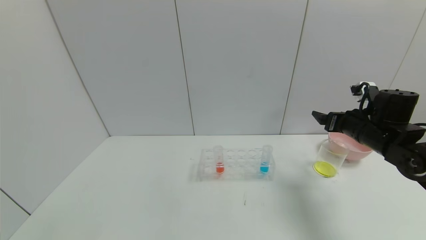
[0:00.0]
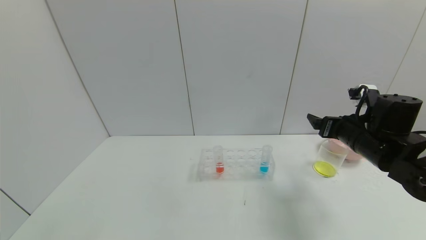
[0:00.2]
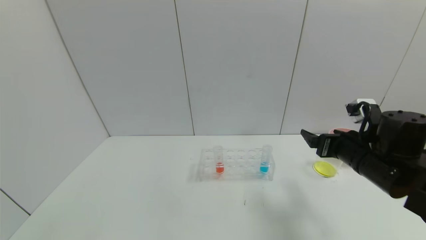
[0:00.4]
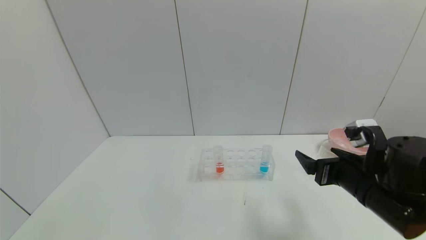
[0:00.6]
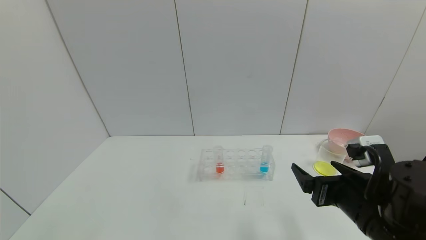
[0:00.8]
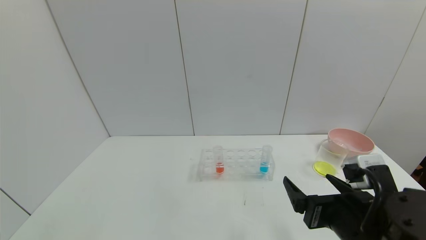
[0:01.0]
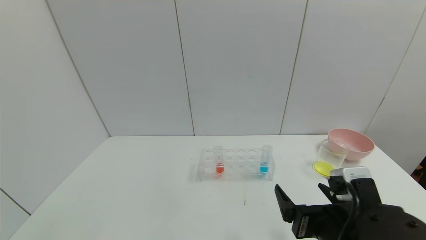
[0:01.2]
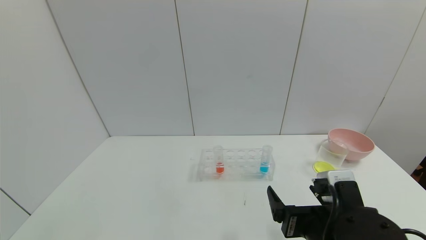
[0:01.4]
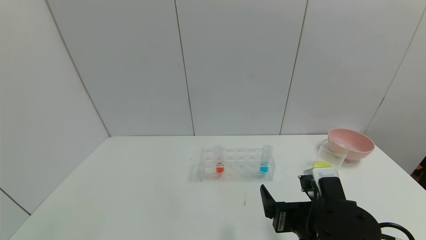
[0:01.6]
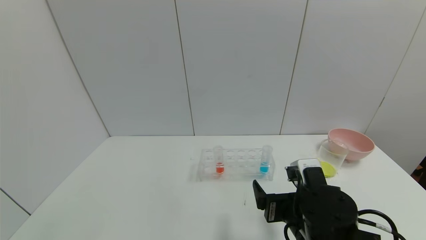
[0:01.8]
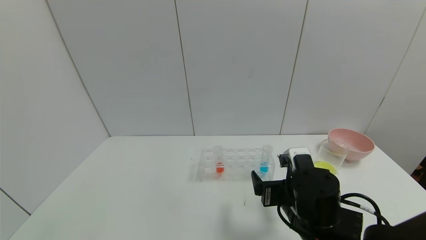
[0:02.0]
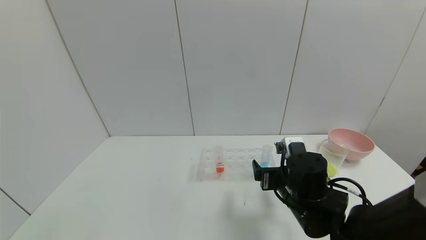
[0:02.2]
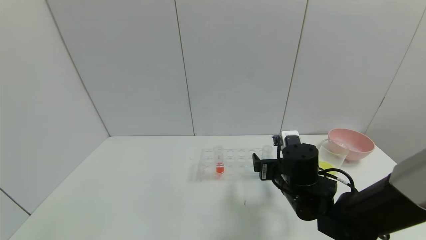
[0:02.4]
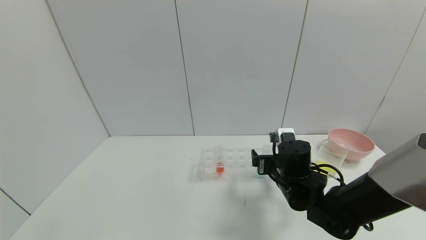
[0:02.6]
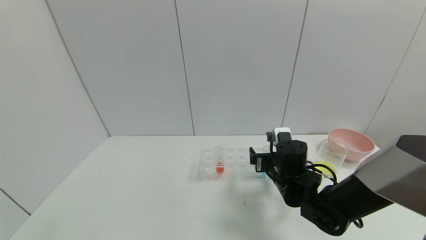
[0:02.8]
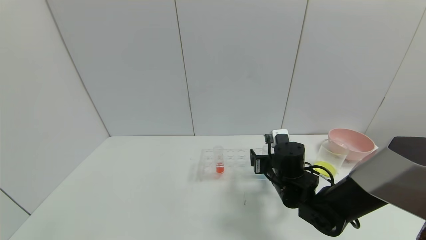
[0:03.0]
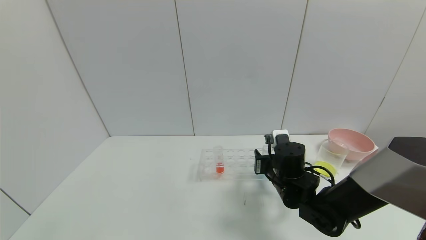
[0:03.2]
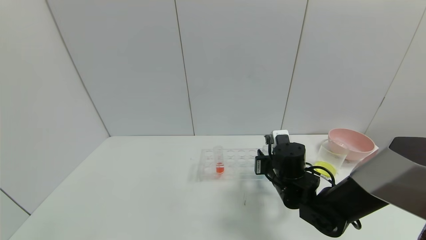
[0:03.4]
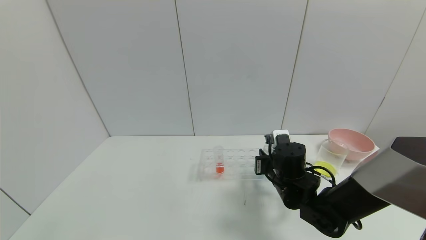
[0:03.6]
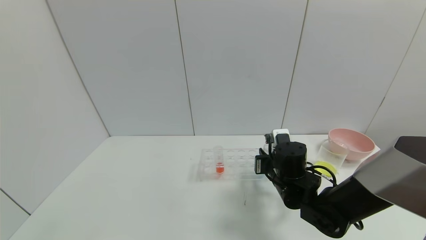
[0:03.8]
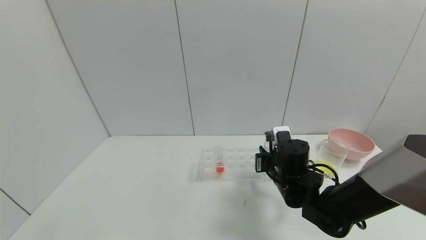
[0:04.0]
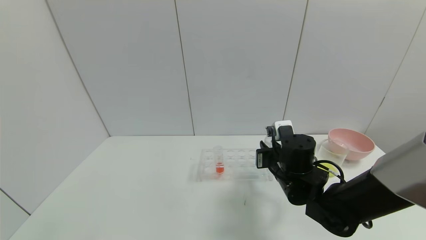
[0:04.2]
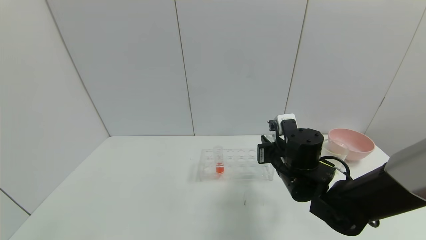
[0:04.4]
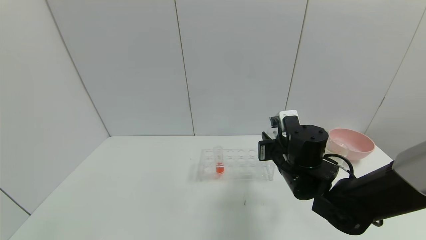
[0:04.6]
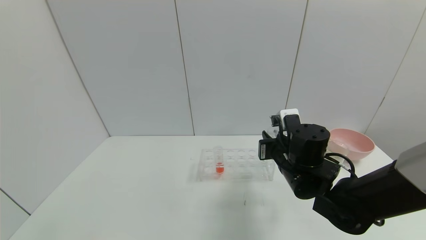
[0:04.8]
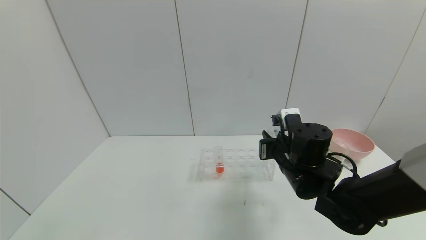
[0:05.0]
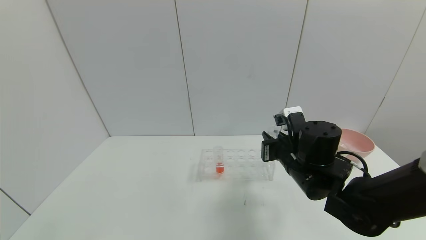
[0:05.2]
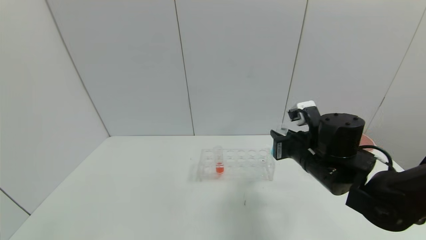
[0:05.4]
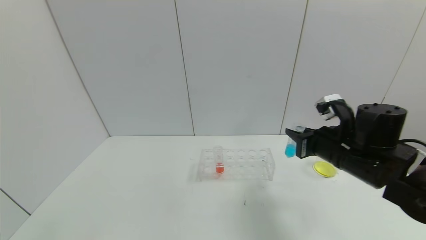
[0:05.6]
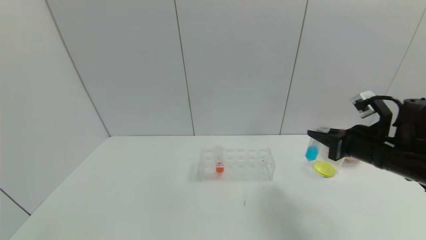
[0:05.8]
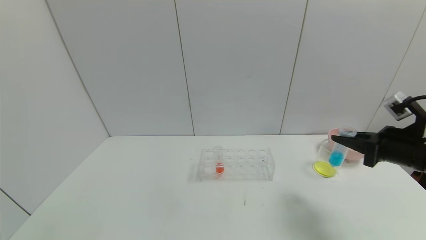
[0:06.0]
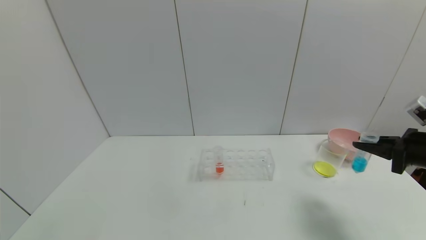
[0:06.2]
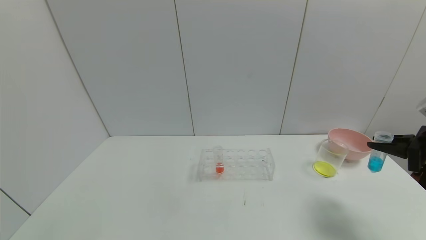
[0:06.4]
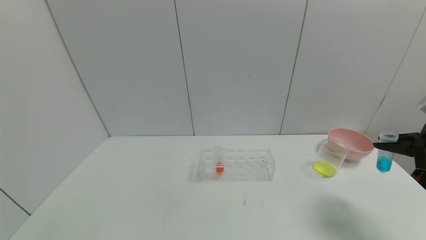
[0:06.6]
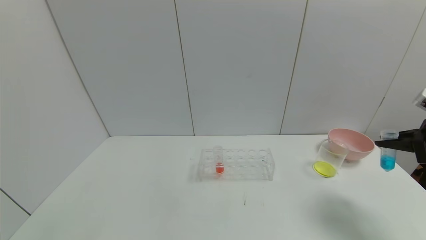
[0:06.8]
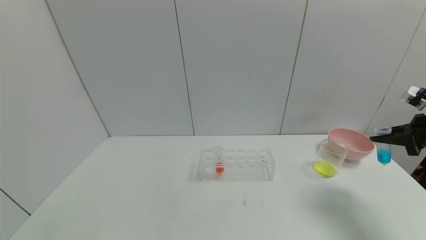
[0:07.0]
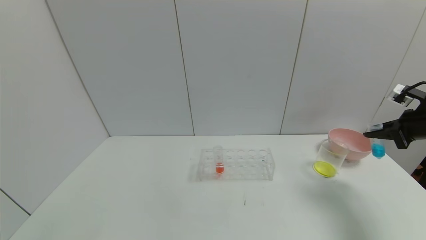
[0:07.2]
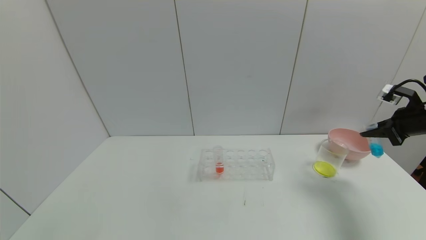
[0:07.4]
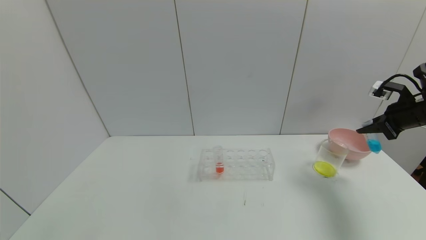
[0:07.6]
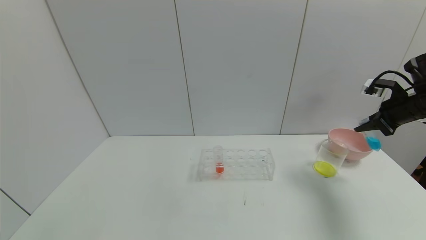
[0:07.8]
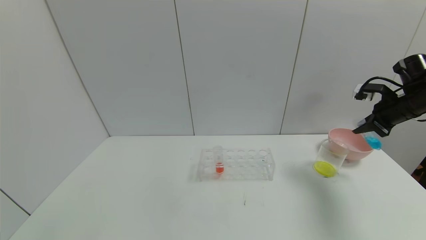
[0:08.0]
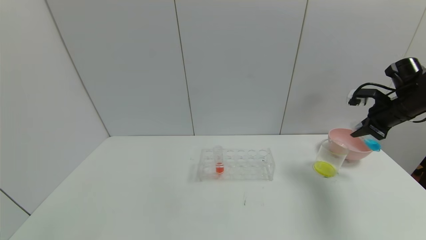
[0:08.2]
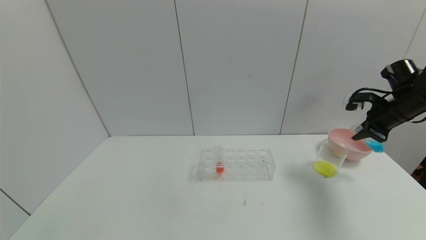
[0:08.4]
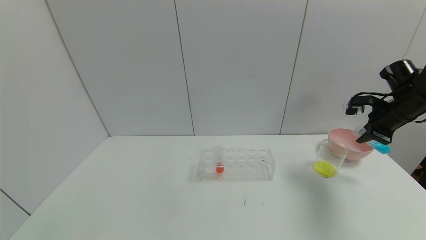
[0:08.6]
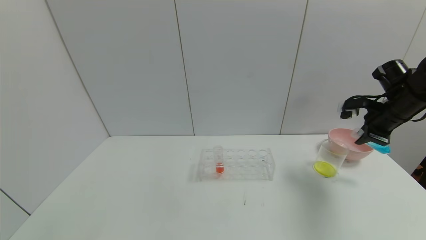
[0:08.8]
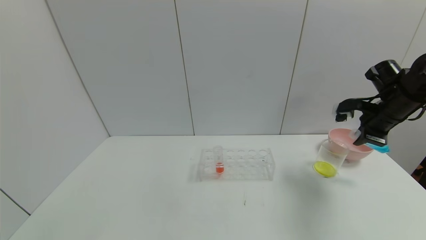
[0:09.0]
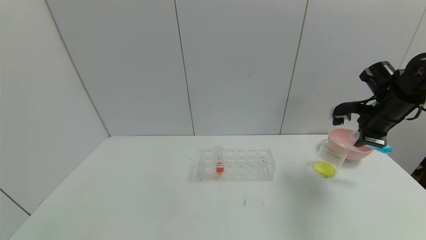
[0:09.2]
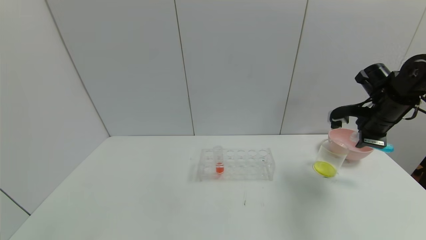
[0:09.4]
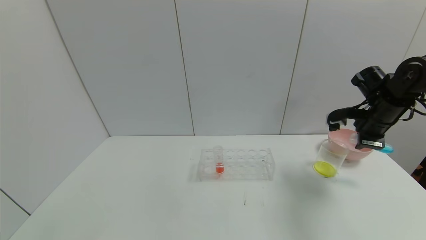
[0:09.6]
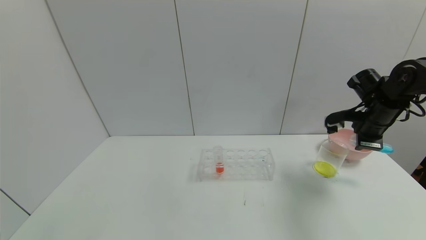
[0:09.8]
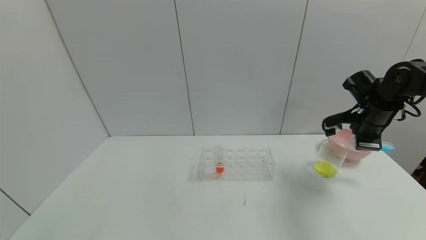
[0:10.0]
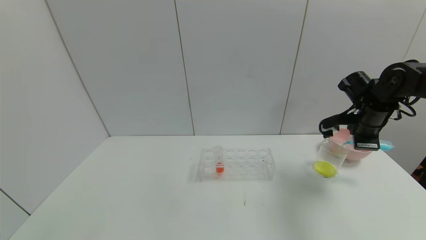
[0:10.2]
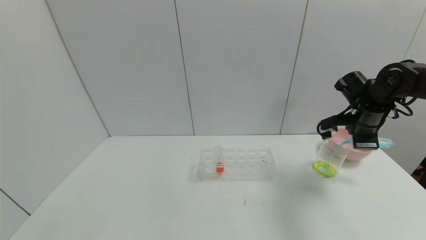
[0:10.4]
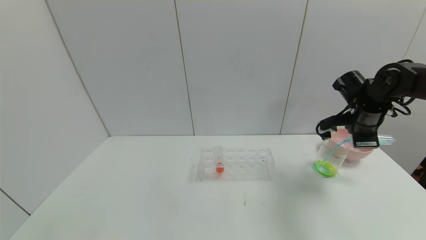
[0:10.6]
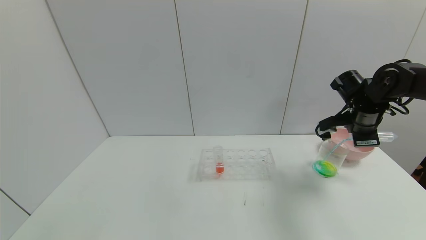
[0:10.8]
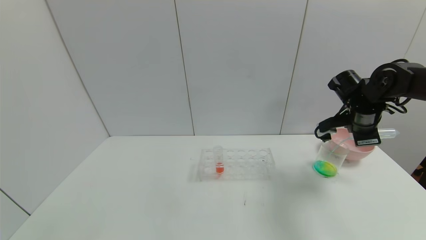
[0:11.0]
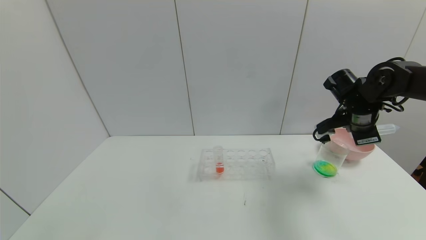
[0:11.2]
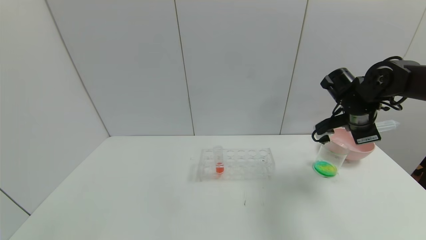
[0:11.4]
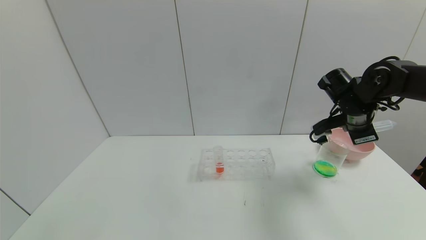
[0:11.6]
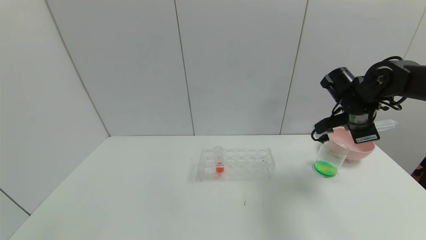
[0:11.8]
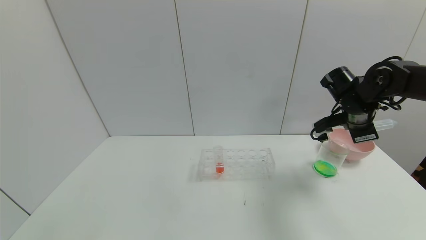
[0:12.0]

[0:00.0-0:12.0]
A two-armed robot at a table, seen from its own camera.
Task of the whole recording: pick up the test tube with yellow pigment and the test tube with blue pigment by grippers and pour them into the beaker.
Step, 0:00.0 to 0:03.8: Grasp the blue reagent with the right gripper.
Step, 0:04.0 to 0:11.4: Pour the blue reagent into the graduated cylinder with the right gripper.
0:00.0 to 0:01.6: The right gripper goes roughly 25 cm backward and to the left.
0:01.6 to 0:03.0: The right gripper shifts roughly 15 cm forward.
0:03.0 to 0:04.4: The right gripper shifts by some 5 cm, and closes its fingers.
0:04.4 to 0:06.0: The right gripper heads to the right, covering some 20 cm.
0:06.0 to 0:07.6: The right gripper heads forward and to the right, covering about 15 cm.
0:07.6 to 0:09.0: The right gripper travels to the left by some 5 cm.
0:10.4 to 0:12.0: The grippers stay close to where they were, moving slightly.

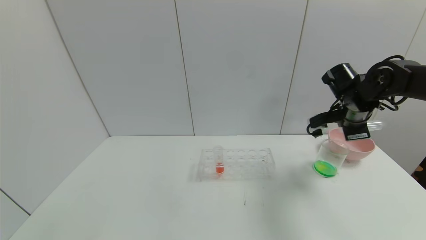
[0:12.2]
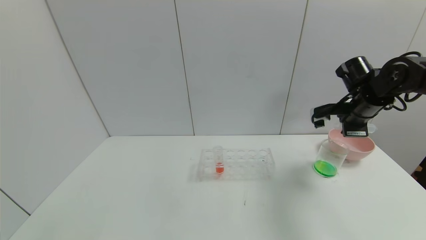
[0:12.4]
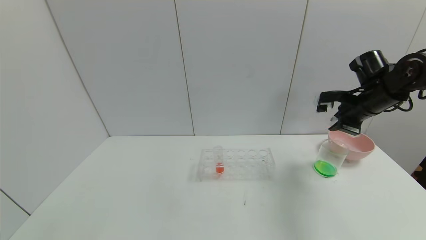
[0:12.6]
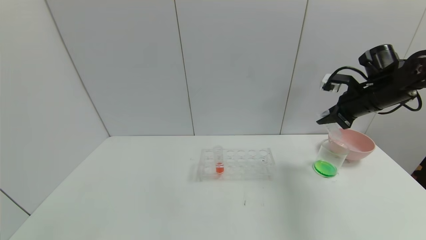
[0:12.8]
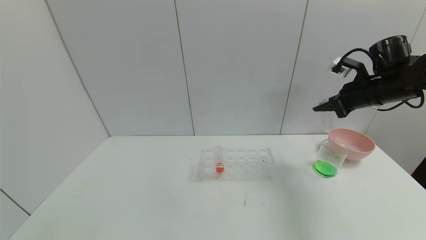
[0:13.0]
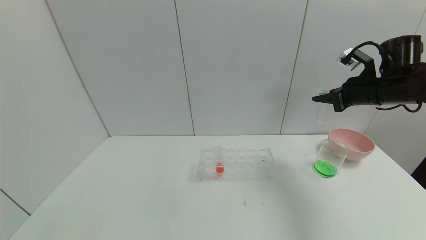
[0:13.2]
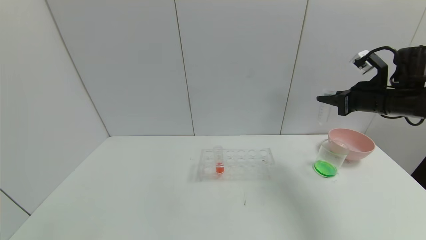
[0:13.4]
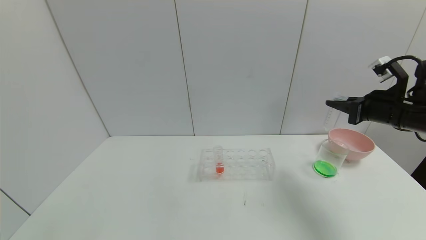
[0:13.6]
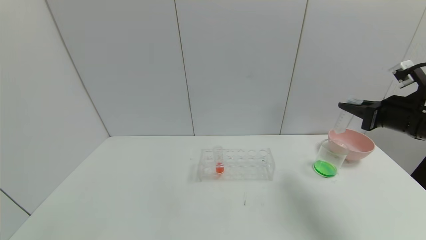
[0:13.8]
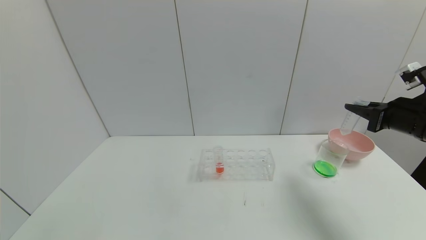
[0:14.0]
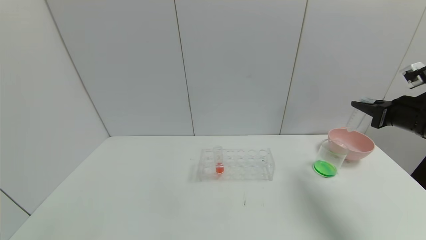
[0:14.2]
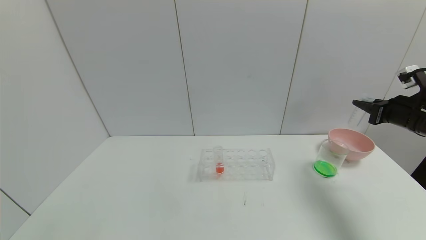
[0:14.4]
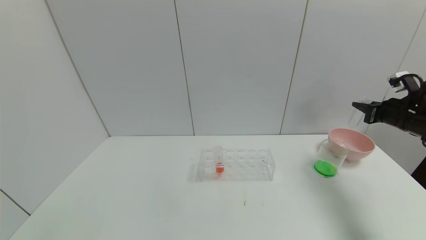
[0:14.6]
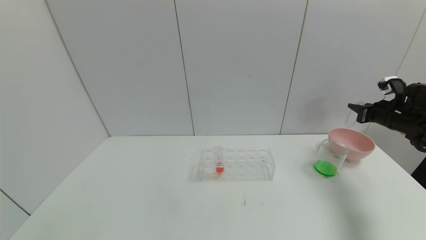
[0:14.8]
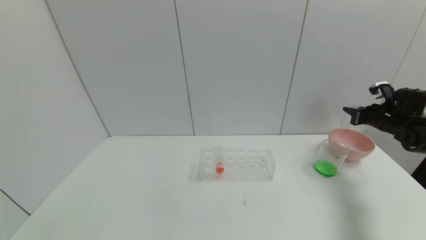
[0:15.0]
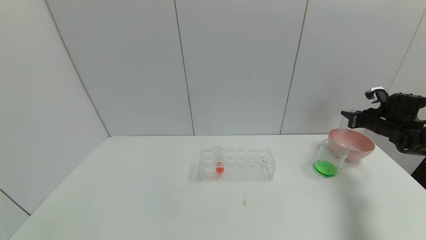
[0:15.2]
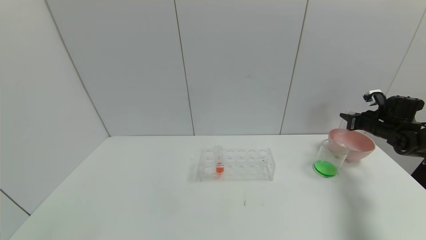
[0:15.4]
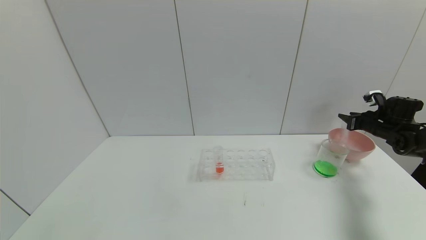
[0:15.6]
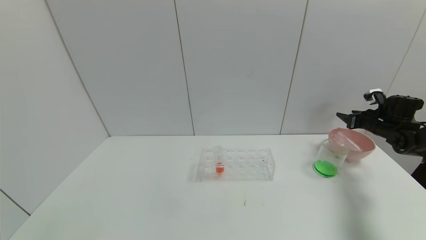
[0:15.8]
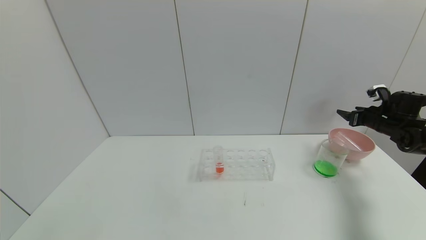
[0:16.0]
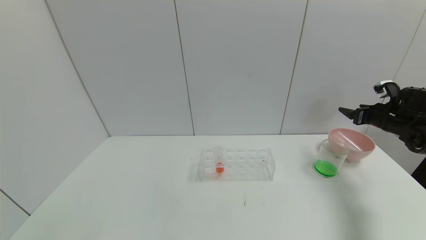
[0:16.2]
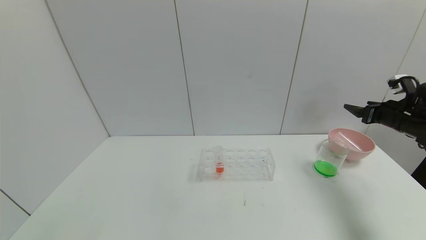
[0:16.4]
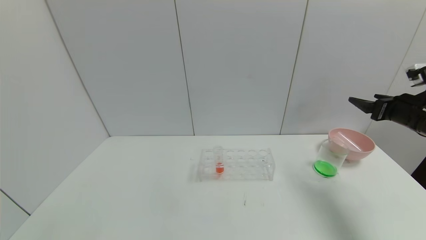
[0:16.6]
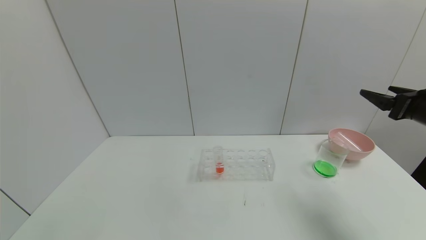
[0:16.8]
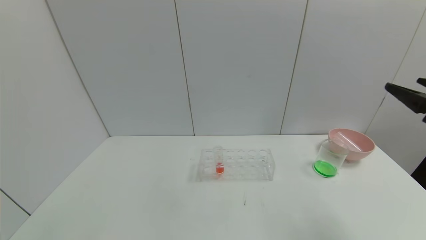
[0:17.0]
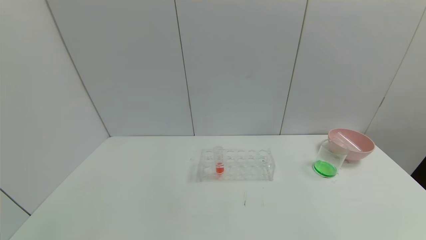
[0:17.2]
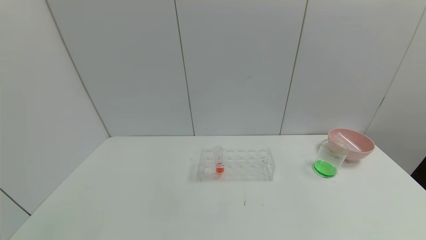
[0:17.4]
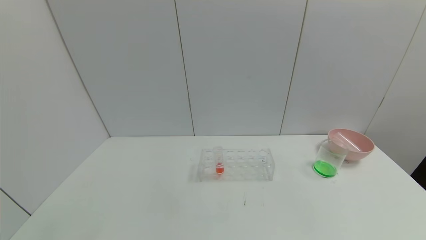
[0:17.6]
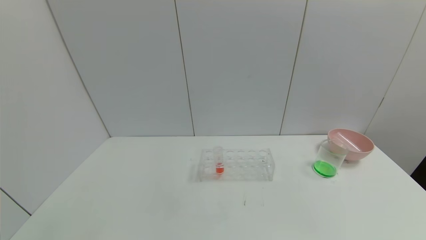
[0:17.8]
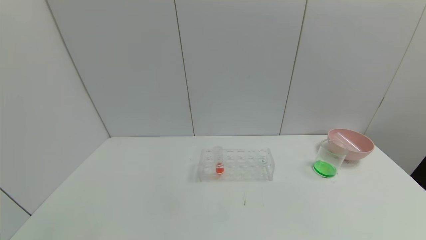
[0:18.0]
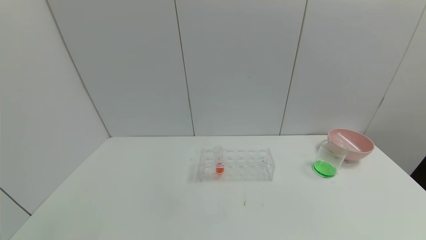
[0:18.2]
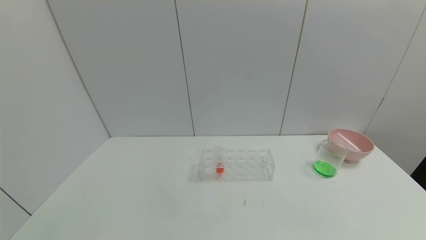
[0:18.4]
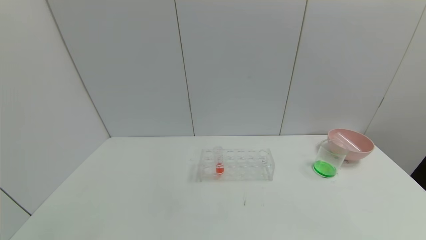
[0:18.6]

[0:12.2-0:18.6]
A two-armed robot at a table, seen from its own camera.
Task of the whole recording: pick up the test tube with yellow pigment and the test tube with blue pigment by grippers and pour them into the beaker.
Step, 0:12.2 to 0:16.0: Place the test tube into the bowl with the right gripper.
0:12.2 to 0:13.8: The right gripper is displaced backward and to the right by approximately 10 cm.
0:13.8 to 0:15.4: The right gripper heads forward, to the right and downward, covering approximately 20 cm.
0:15.4 to 0:17.0: The right gripper travels backward and upward by approximately 30 cm, and opens.
0:17.0 to 0:18.6: The right gripper shifts some 30 cm backward and downward.
